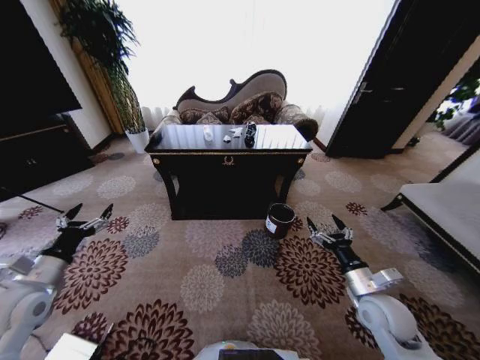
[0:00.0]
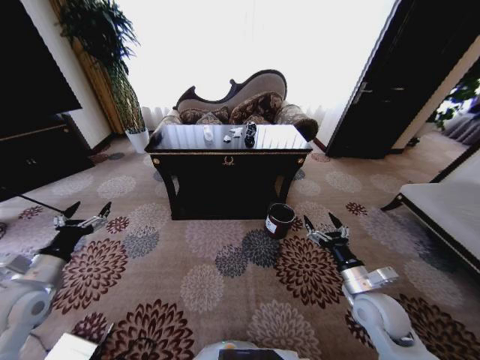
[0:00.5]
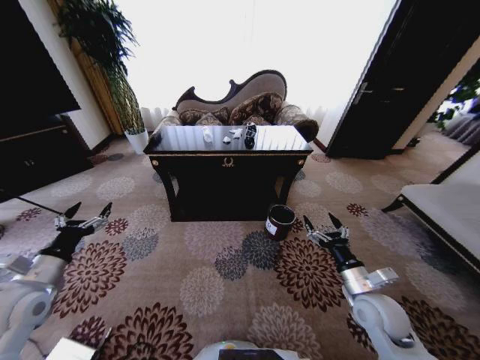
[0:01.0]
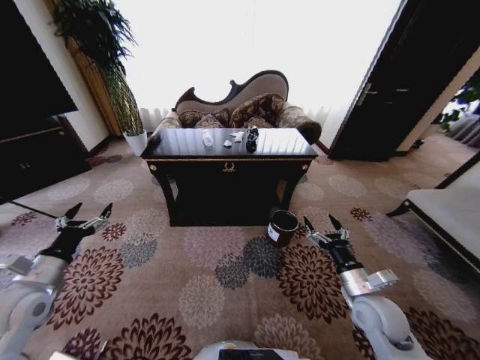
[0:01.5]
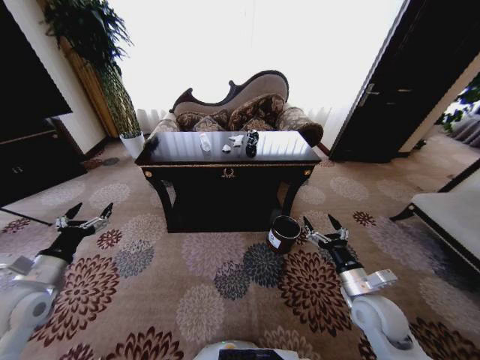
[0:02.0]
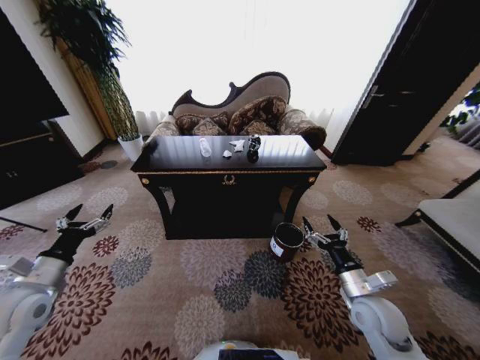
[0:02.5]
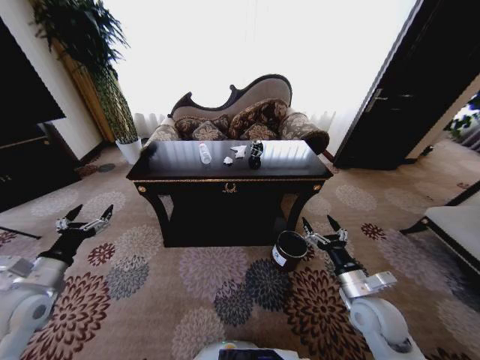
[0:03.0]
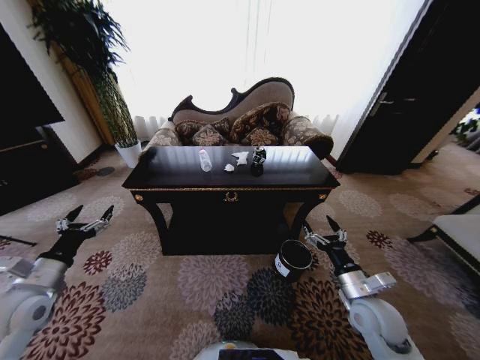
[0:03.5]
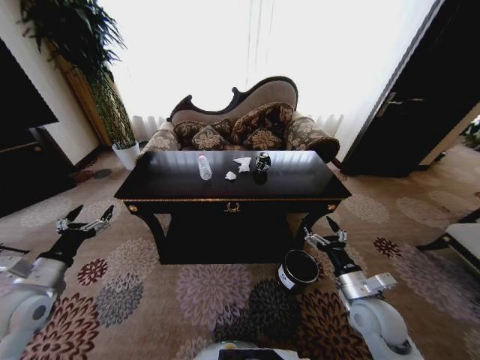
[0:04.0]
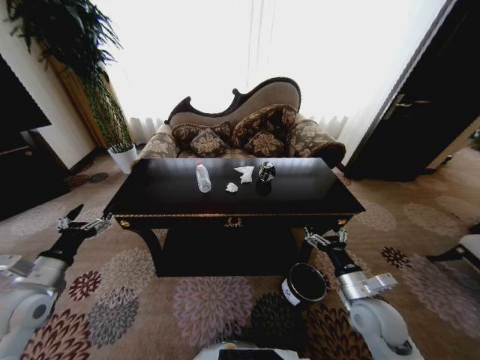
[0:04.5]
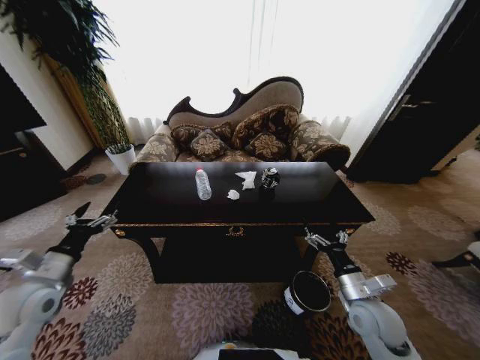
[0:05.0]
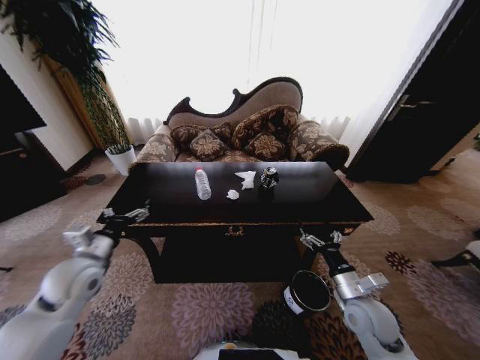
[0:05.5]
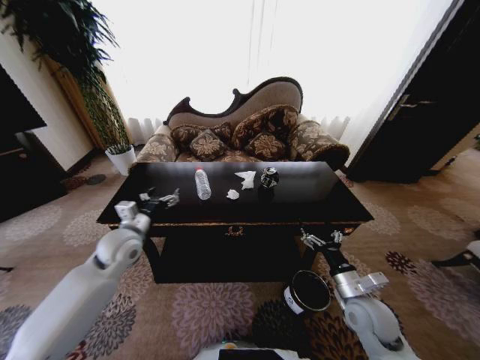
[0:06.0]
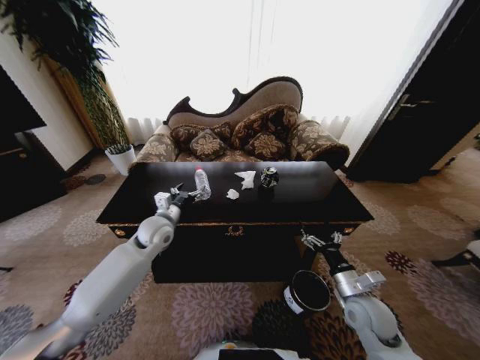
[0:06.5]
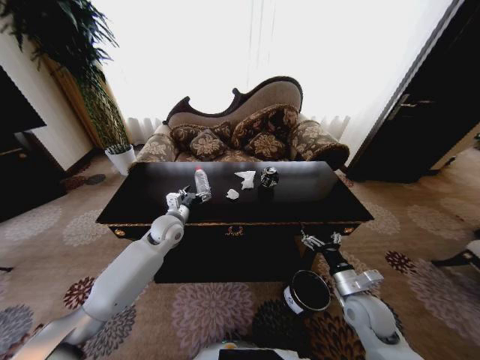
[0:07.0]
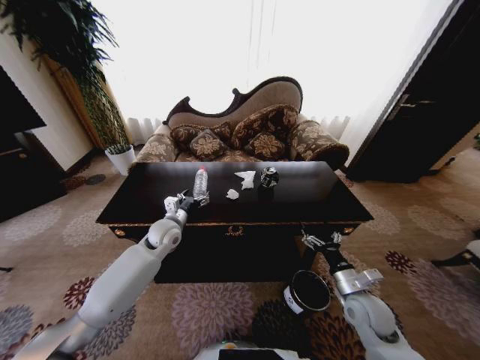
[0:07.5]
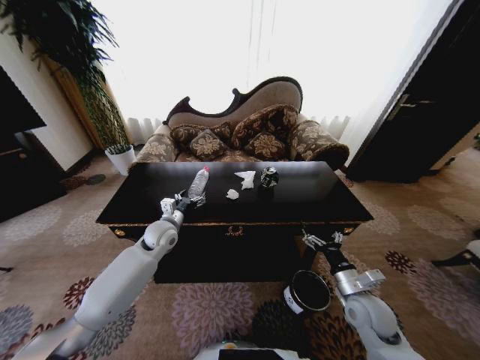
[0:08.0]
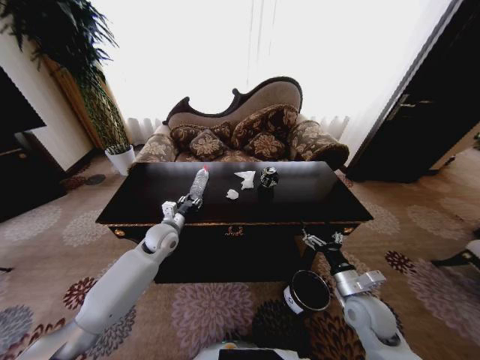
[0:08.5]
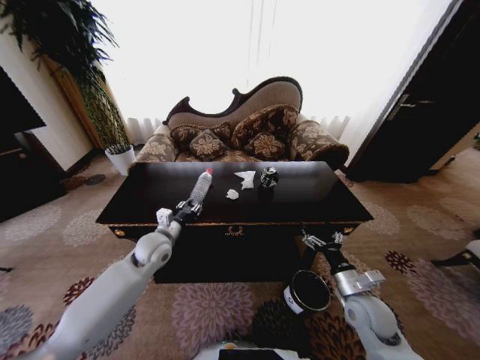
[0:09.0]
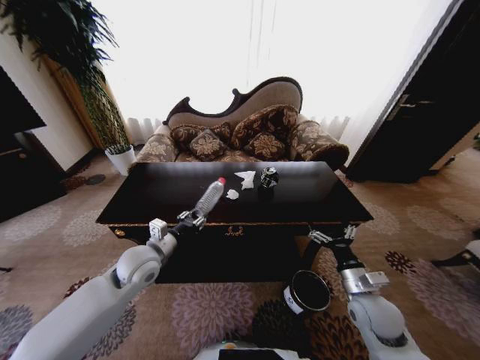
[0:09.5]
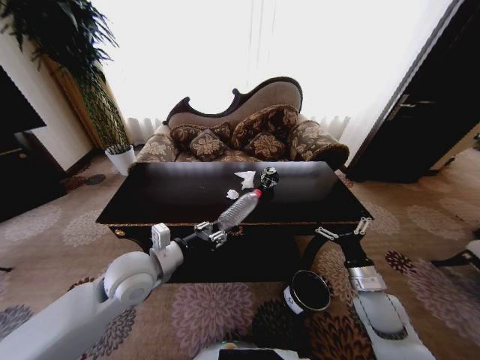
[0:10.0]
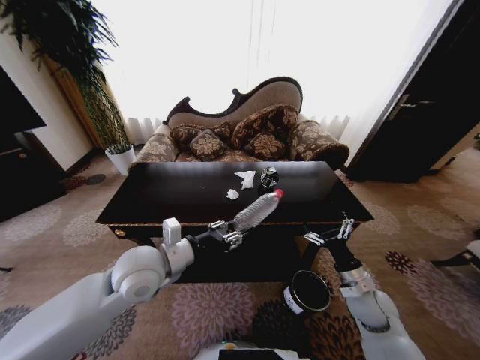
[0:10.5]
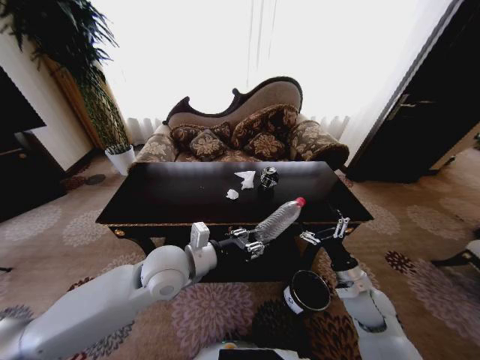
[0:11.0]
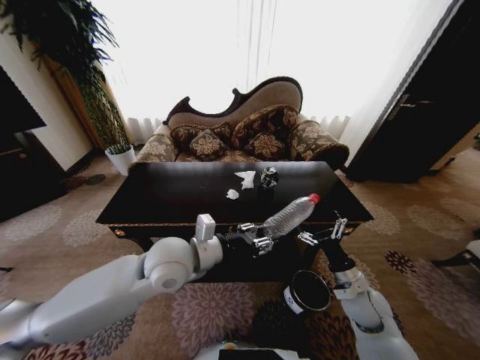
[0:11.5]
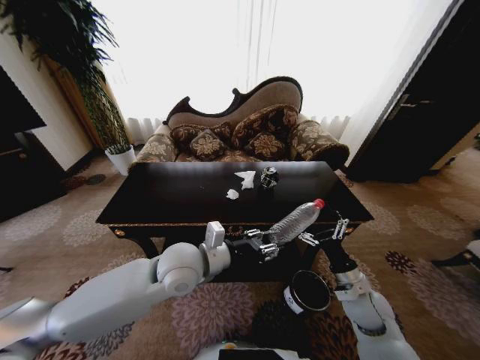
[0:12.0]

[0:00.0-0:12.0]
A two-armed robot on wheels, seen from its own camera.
Task of the whole recording: Move to the front of the table and place the trash on the table into the trash bin.
0:04.0 to 0:06.0: The left gripper travels to the right and forward by approximately 20 cm.
0:06.0 to 0:08.0: The left gripper heads forward, to the right and downward, covering about 10 cm.
0:08.0 to 0:10.0: The left gripper shifts about 20 cm backward and upward, and closes.
0:10.0 to 0:12.0: The left gripper travels to the right by some 10 cm.

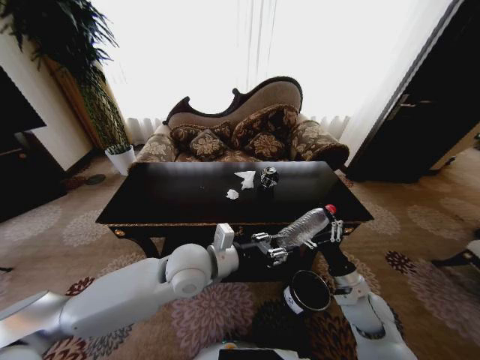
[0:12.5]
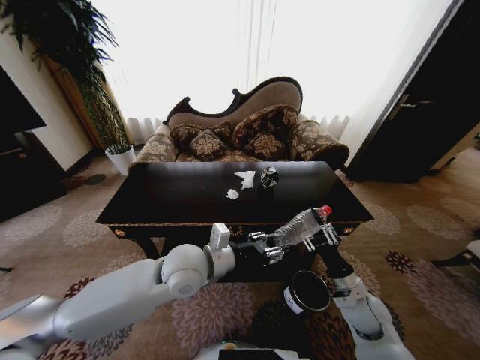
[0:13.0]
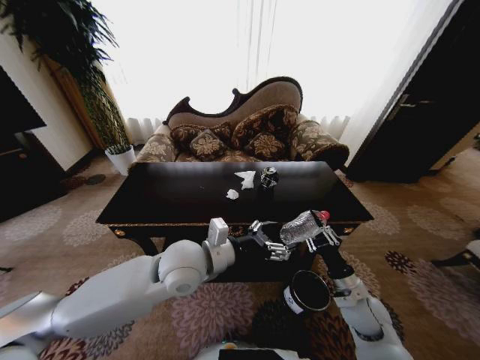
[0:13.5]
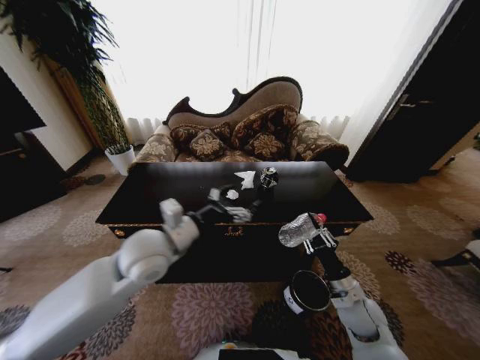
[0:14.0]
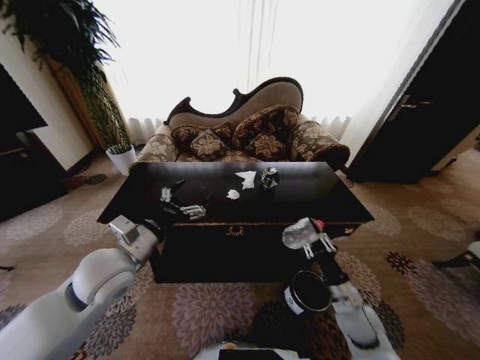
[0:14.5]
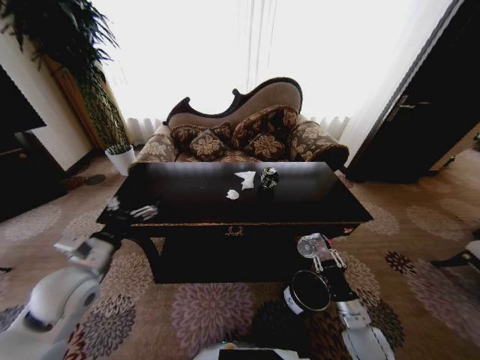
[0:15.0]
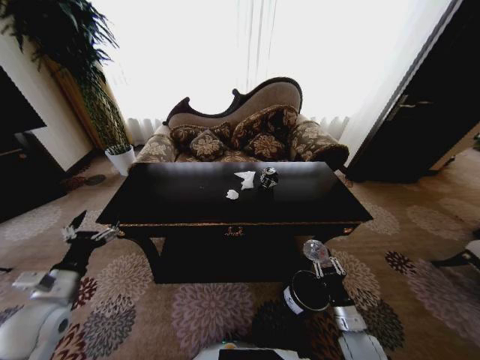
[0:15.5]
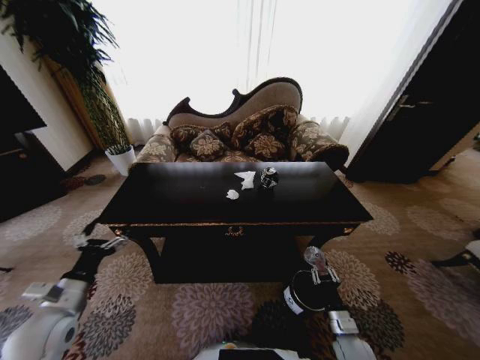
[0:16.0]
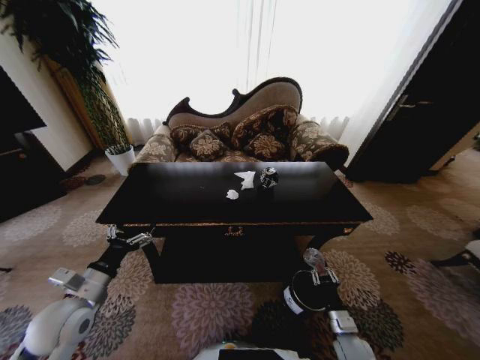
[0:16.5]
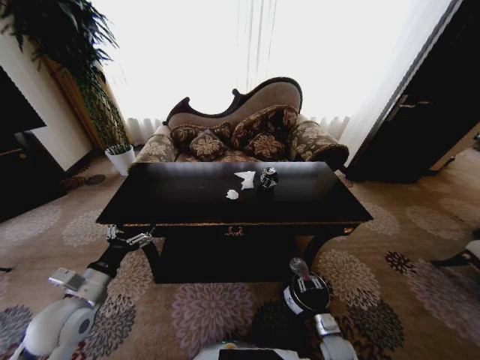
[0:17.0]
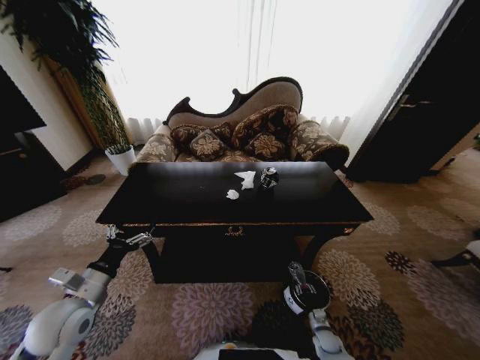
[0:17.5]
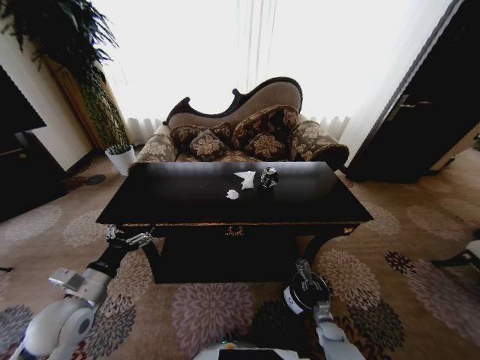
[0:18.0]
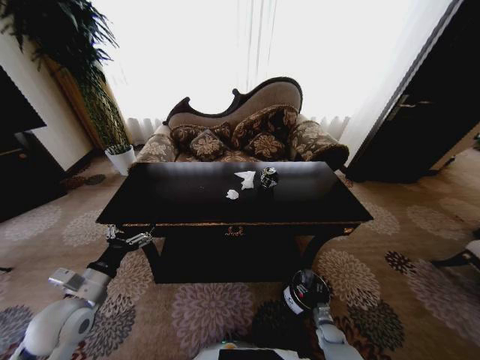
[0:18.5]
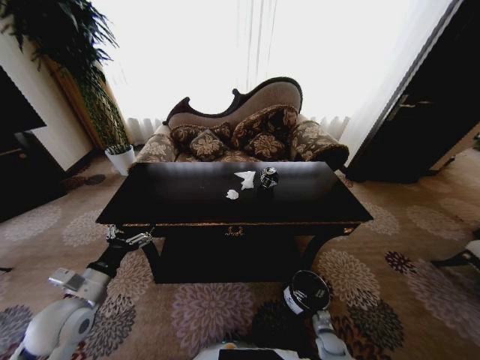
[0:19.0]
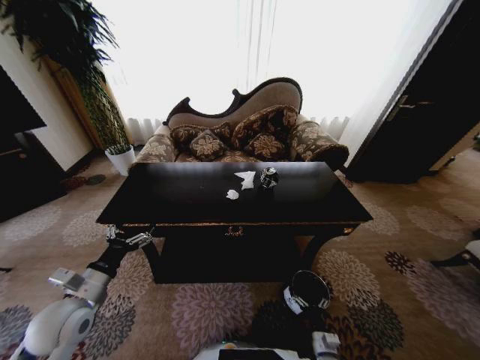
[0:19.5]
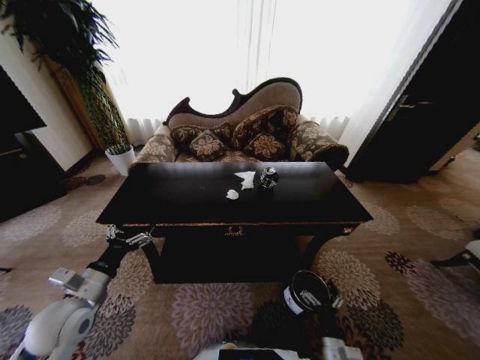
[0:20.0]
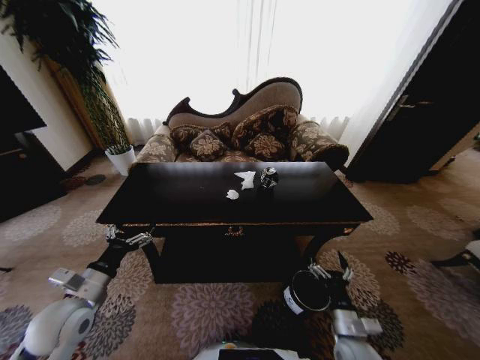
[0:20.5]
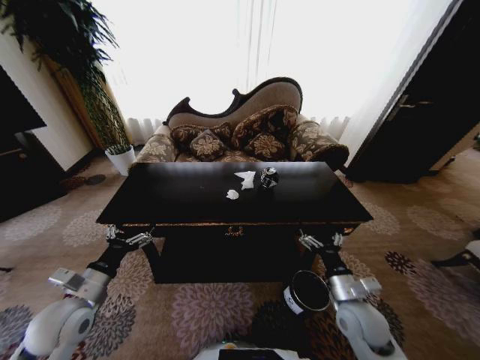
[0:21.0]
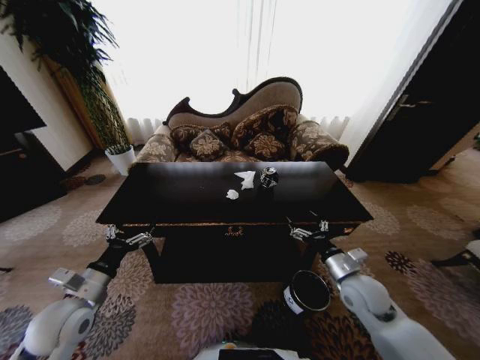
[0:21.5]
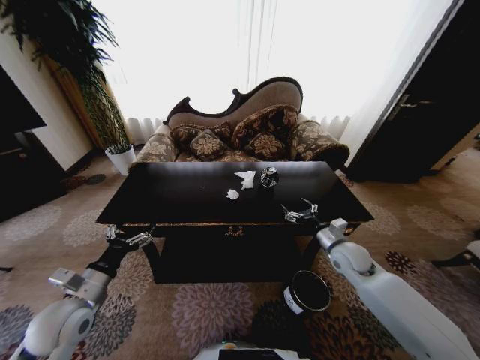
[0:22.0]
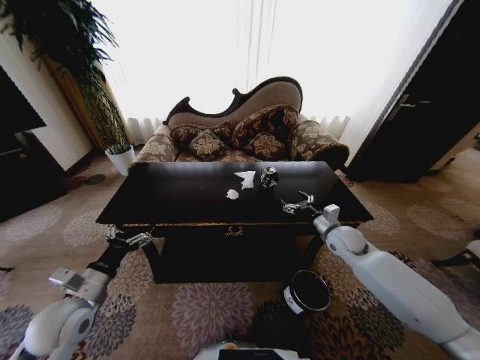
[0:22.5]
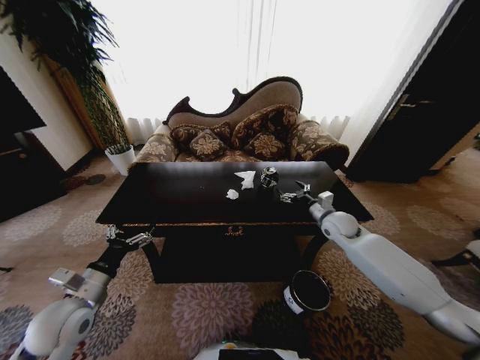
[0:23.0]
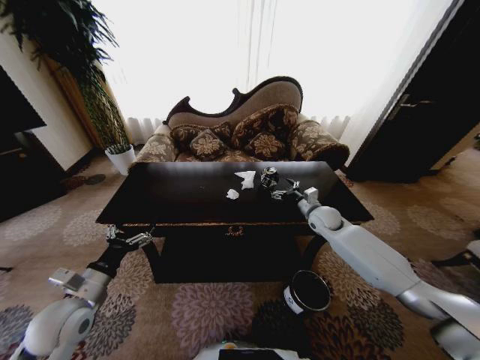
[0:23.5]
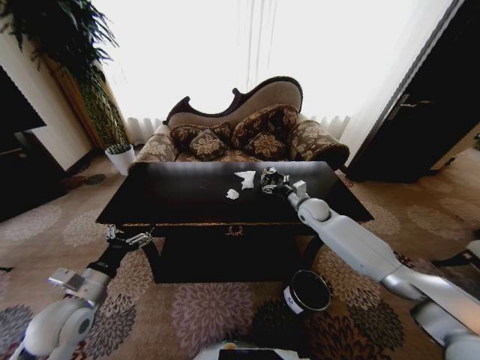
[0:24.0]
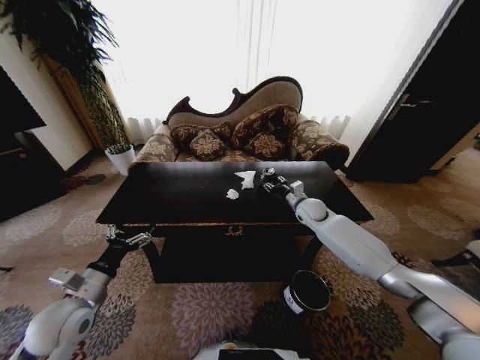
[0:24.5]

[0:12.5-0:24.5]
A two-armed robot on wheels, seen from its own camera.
Task of the whole recording: Move to the front of the table and place the trash on the table into the trash bin.
0:12.5 to 0:14.5: The left gripper travels to the left by approximately 15 cm, and opens. The right gripper closes its fingers.
0:14.5 to 0:16.5: The left gripper is displaced to the left, downward and backward by roughly 15 cm. The right gripper shifts some 10 cm downward.
0:16.5 to 0:18.5: The right gripper heads downward, covering roughly 15 cm, and opens.
0:18.5 to 0:20.5: The right gripper is displaced upward by roughly 25 cm.
0:20.5 to 0:22.5: The right gripper goes approximately 30 cm forward and upward.
0:22.5 to 0:24.5: The right gripper shifts some 15 cm forward and to the left, and closes up.

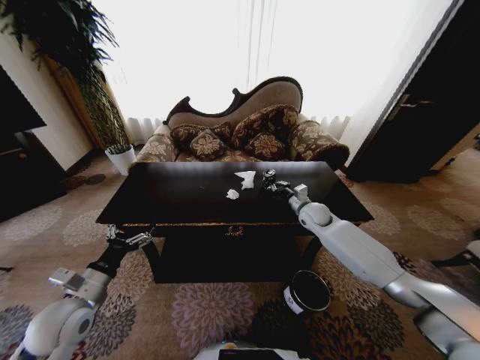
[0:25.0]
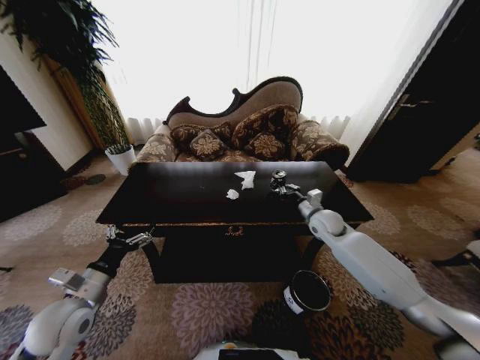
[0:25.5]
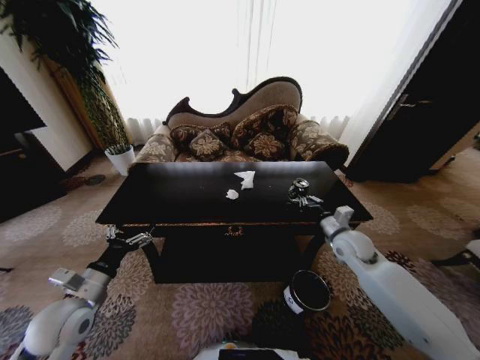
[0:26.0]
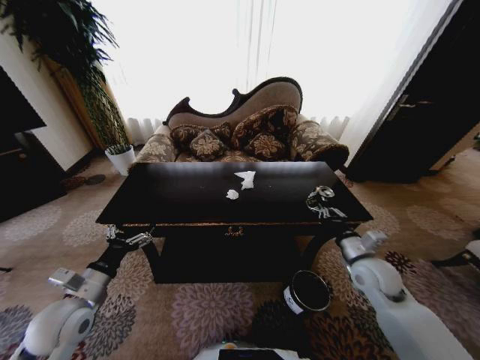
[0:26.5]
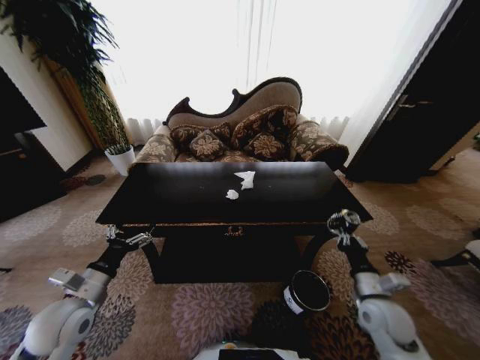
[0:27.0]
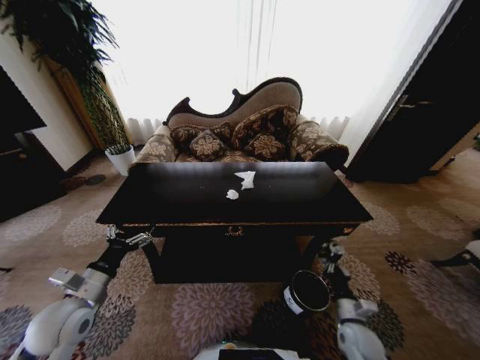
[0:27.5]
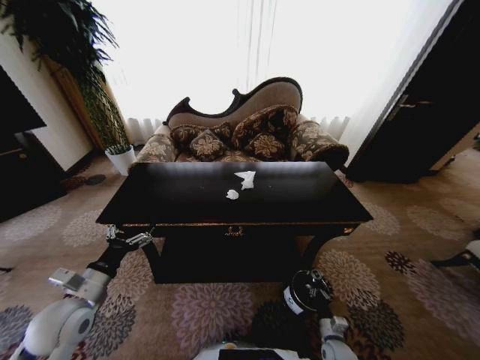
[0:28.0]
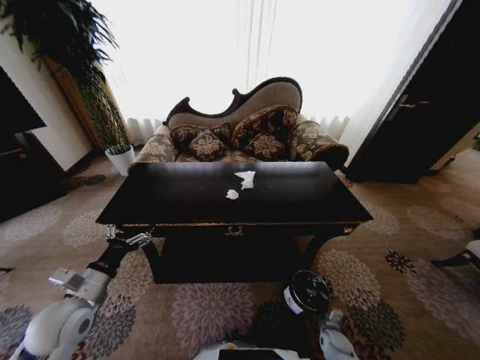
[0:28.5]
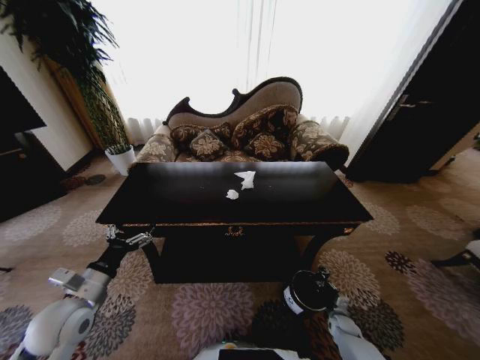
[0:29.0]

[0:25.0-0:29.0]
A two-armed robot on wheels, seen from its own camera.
Task of the whole recording: Move to the front of the table and place the trash on the table into the trash bin.
0:25.0 to 0:27.0: The right gripper is displaced backward by approximately 30 cm.
0:27.0 to 0:29.0: The right gripper goes about 30 cm downward.
